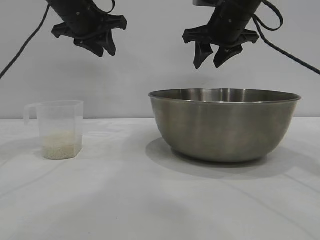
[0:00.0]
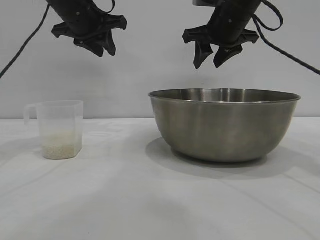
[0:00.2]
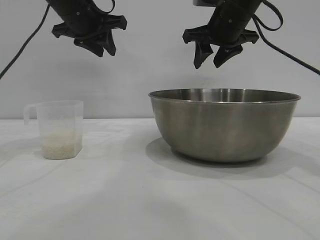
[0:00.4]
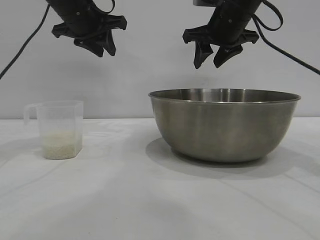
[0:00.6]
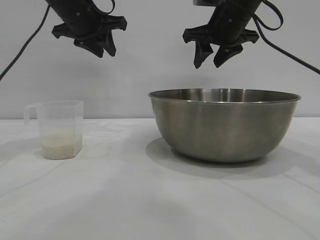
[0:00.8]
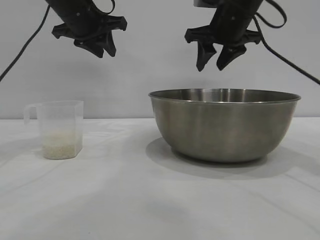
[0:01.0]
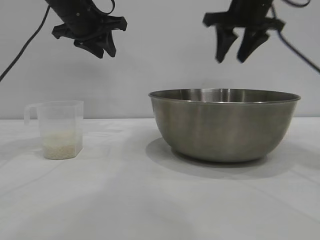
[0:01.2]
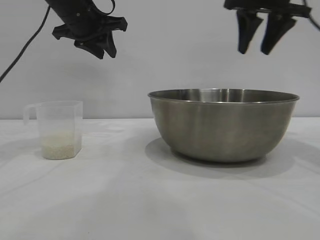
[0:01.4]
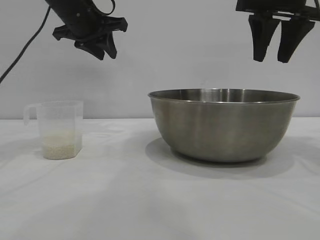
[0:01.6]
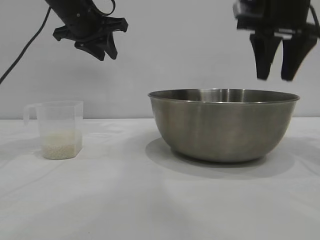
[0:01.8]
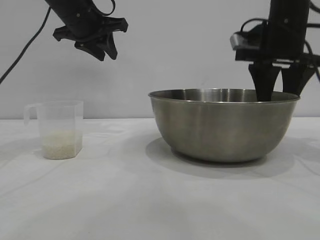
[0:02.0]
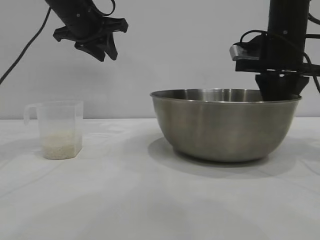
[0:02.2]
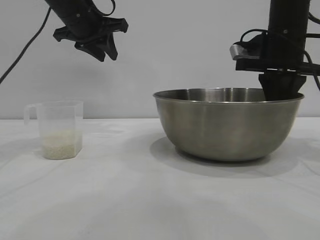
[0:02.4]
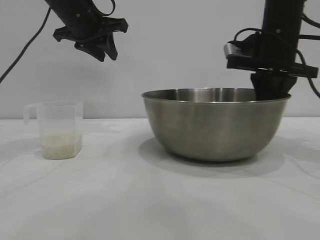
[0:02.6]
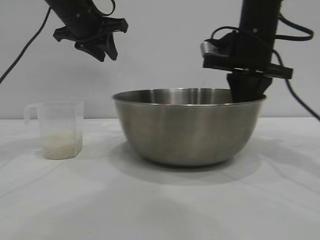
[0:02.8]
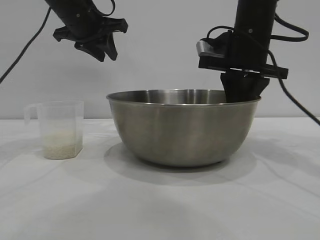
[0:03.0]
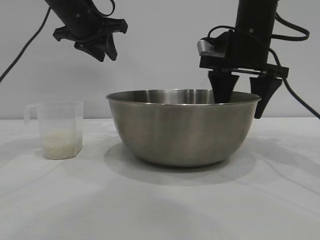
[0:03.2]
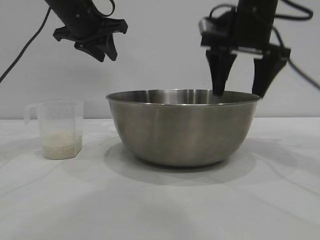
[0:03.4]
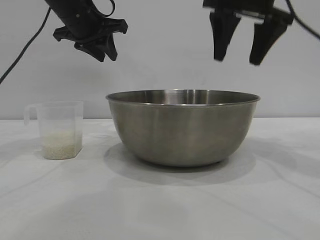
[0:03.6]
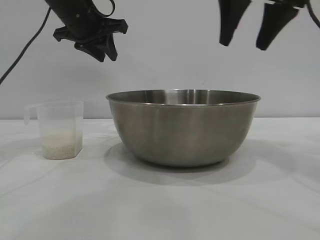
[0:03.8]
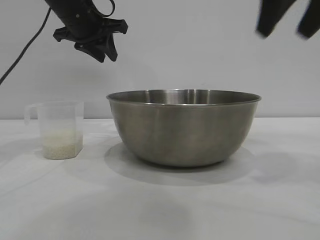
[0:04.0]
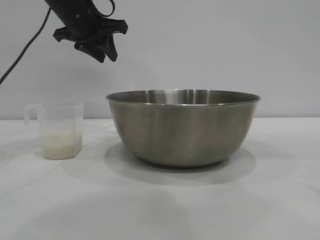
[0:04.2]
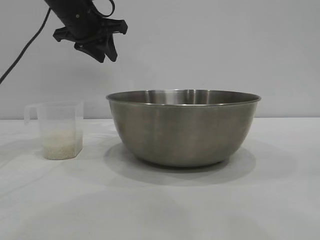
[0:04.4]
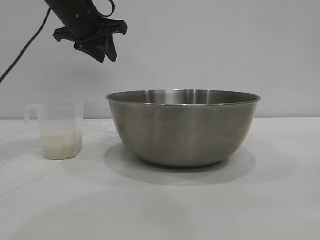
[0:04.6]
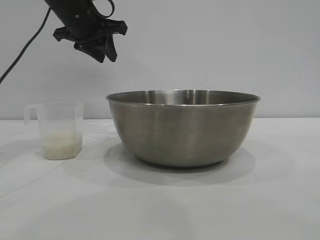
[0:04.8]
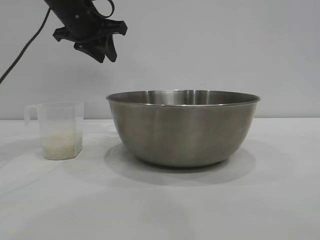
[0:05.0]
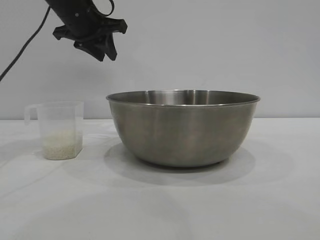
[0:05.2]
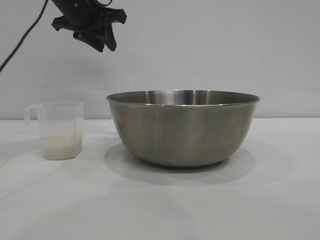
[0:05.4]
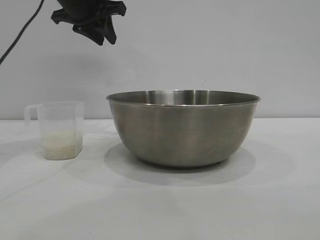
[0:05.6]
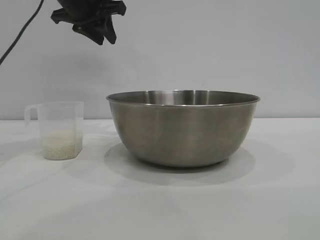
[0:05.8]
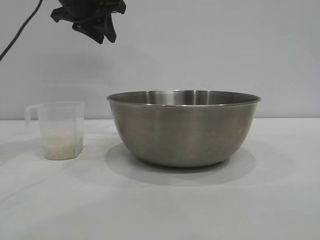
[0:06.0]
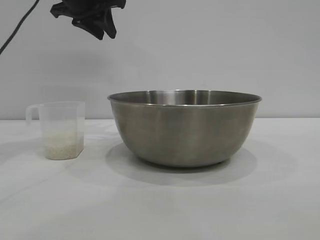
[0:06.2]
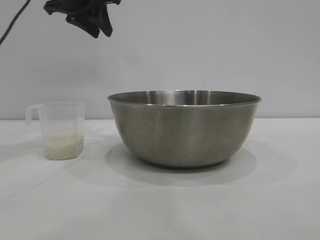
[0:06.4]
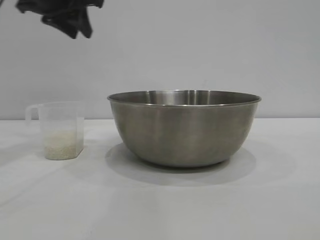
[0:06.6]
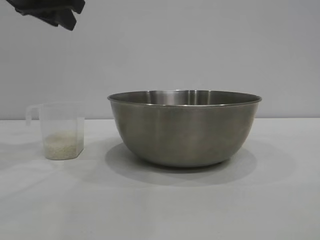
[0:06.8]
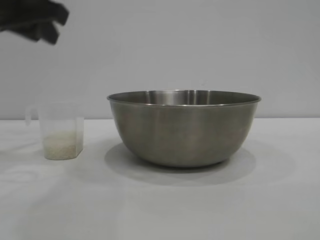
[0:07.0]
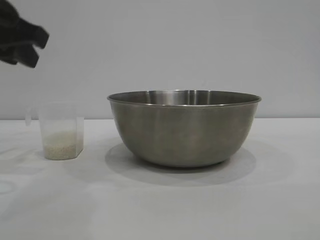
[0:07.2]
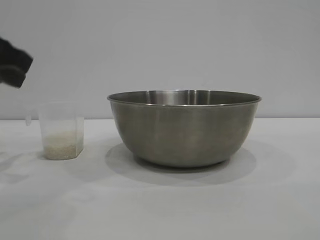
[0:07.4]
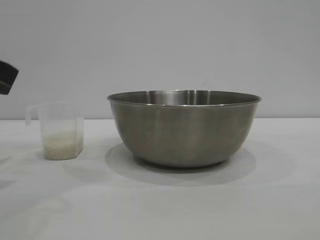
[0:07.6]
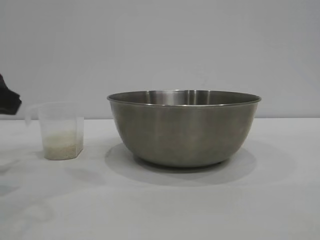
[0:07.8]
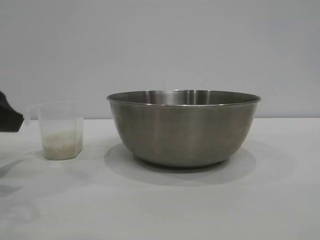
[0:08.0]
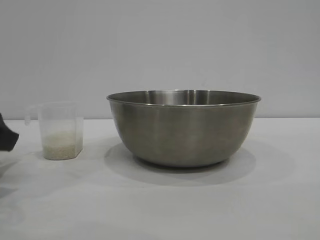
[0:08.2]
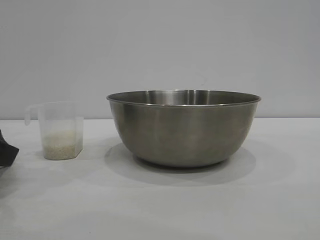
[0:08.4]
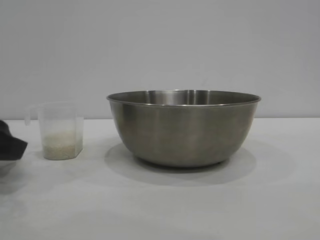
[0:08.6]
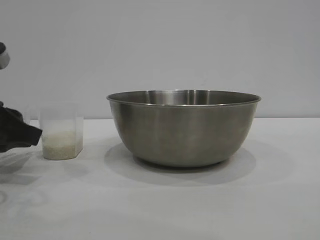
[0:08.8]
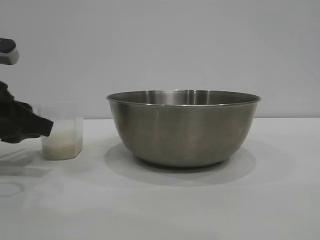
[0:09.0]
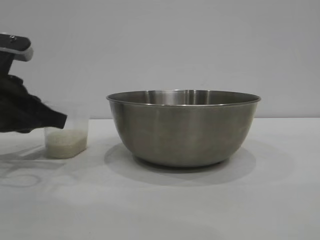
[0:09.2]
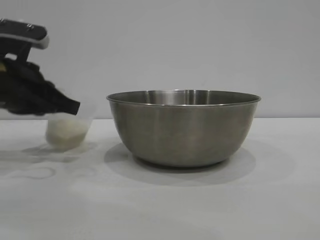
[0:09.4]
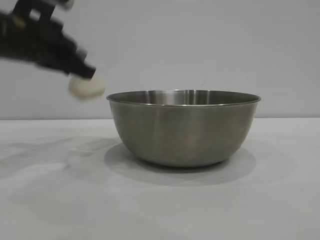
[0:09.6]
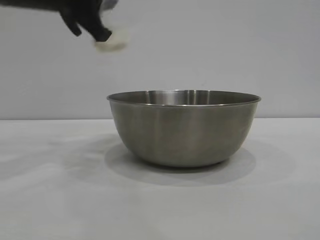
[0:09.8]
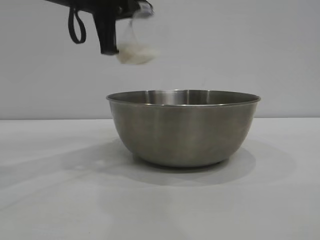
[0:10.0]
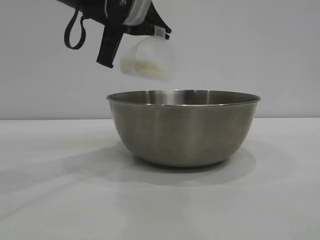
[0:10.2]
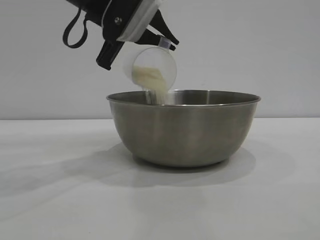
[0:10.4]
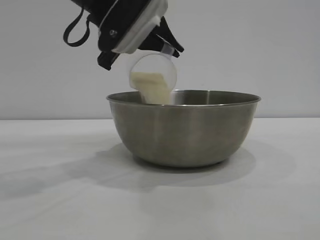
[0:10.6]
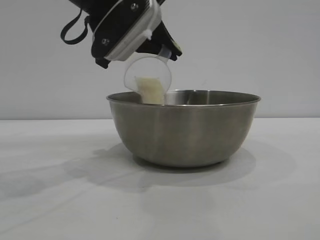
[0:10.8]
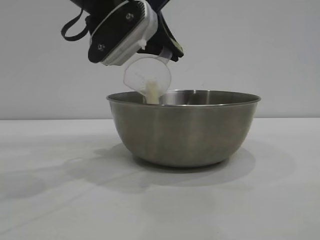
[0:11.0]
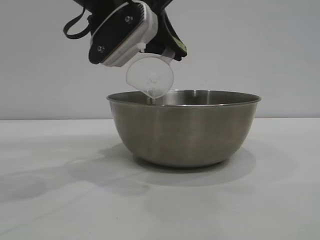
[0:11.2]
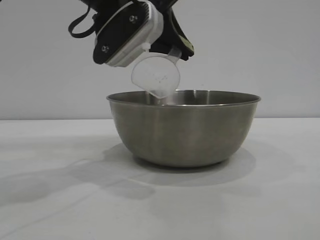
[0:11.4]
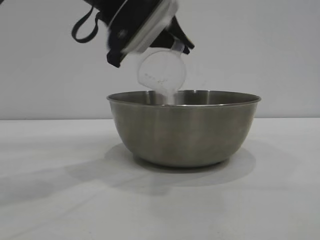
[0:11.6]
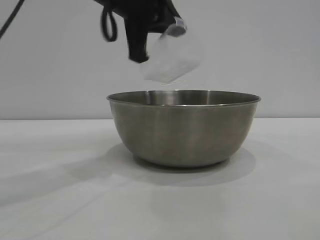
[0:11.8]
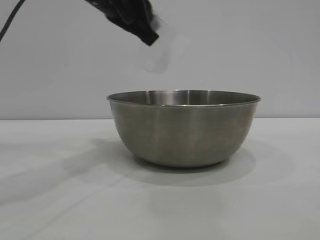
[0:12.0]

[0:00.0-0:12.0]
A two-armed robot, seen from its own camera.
Task of the whole recording: the right gripper grasp the rice container and place it in the center of the table, the left gripper grasp the rice scoop and pour the rice into the rice container.
Step, 0:00.0 to 0:03.4: Move the bowl to the center of view with the right gripper.
Step, 0:03.6 to 0:09.4: Pick up the cup with rice in it with the left gripper.
Step, 0:09.8 to 0:11.8: Pour the rice from the cup into the bowl with the left gripper.

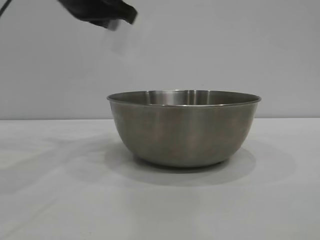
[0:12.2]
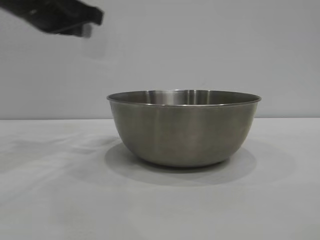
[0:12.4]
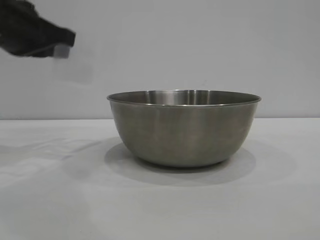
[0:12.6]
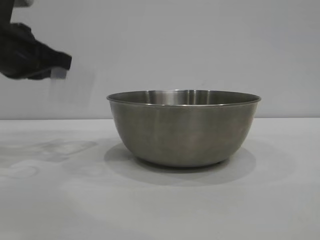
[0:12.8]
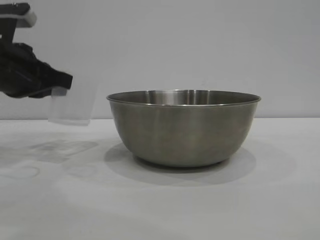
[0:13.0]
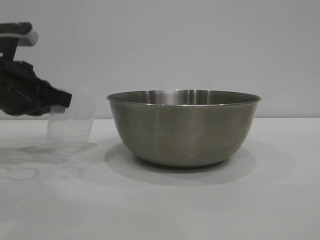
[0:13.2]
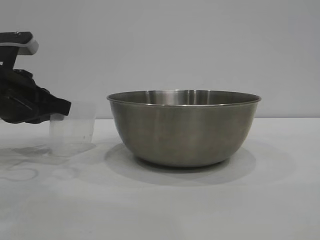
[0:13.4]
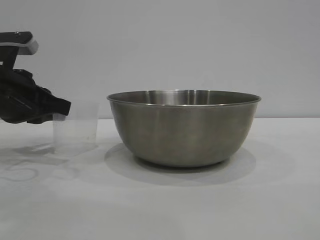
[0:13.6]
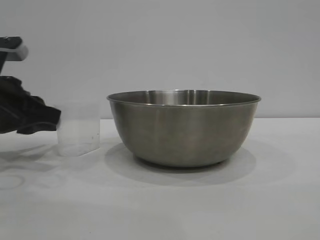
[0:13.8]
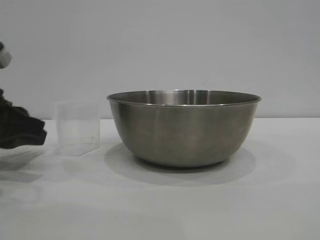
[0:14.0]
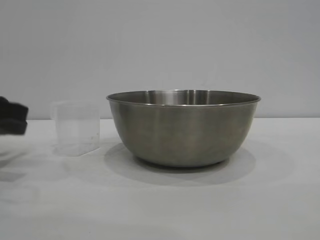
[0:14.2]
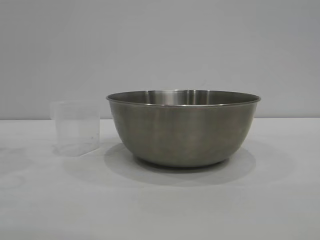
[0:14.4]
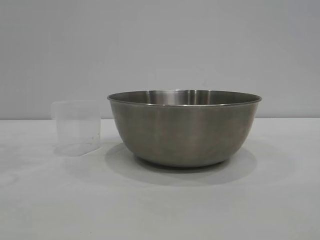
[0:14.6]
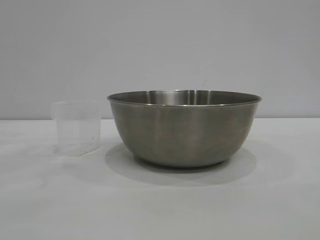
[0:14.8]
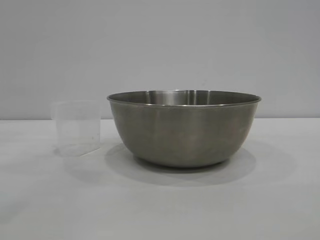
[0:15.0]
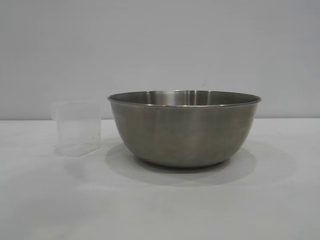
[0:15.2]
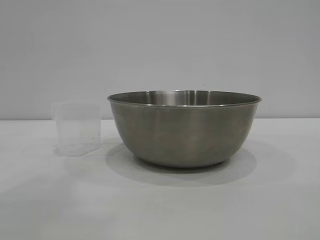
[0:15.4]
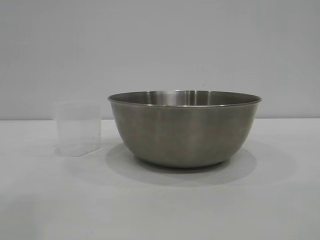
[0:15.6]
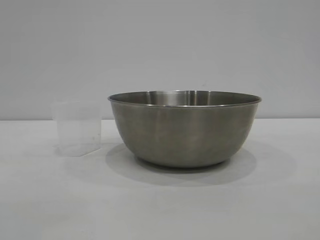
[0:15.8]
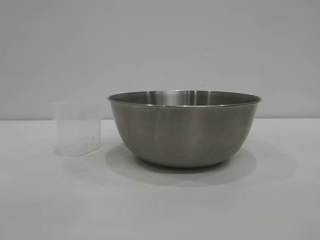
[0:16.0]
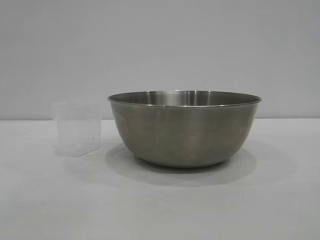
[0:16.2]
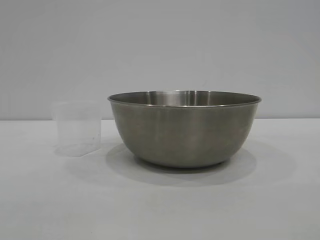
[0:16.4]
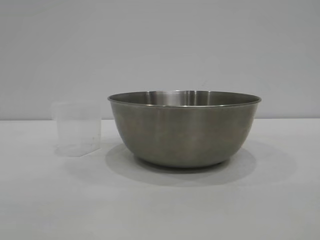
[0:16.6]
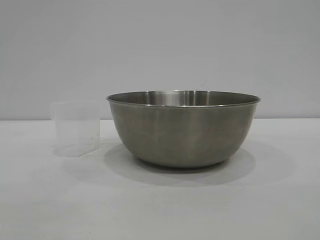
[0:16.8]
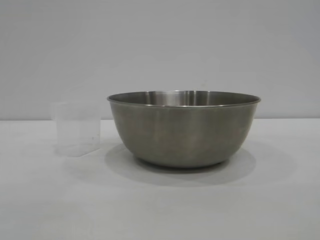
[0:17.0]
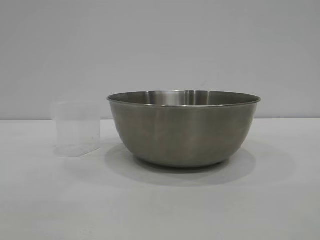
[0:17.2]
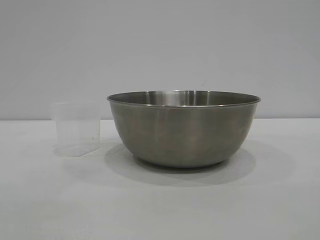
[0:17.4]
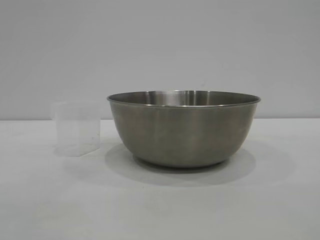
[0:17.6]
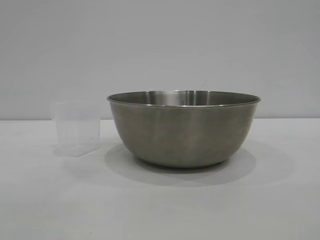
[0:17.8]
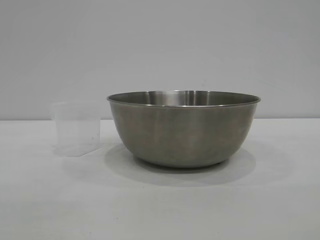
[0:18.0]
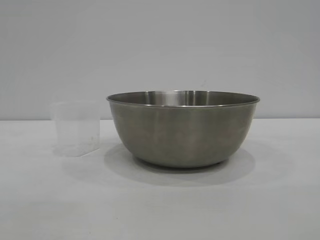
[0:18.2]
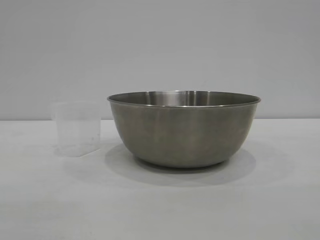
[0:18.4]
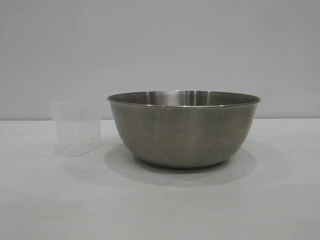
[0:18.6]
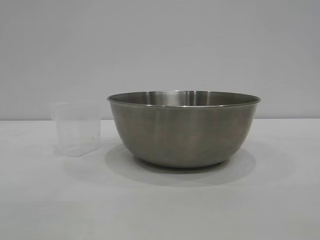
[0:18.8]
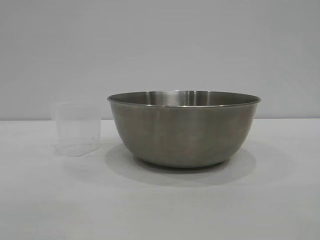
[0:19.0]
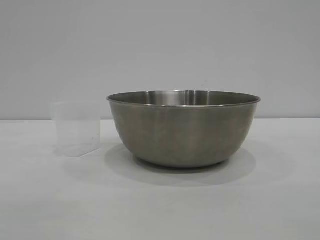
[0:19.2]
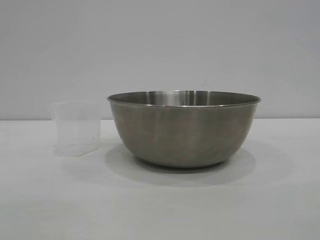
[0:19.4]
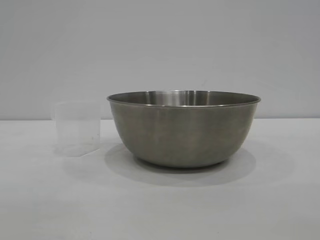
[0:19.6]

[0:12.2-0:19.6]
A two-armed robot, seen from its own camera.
Task of the whole recording: the right gripper grasp the rice container and place it in the center of the table, the left gripper grasp the rice scoop and pour the rice into the rice container.
Step, 0:12.2 to 0:14.0: Place the cup on the table with the left gripper.
